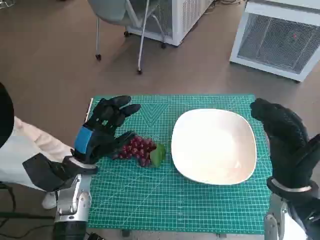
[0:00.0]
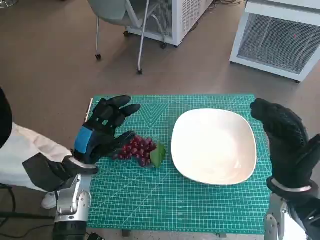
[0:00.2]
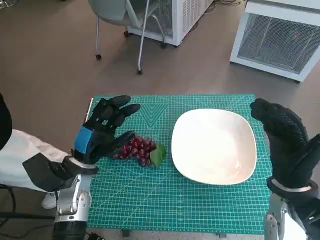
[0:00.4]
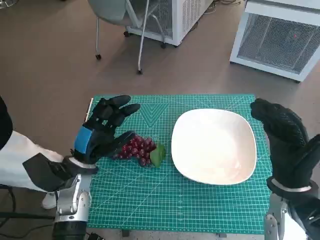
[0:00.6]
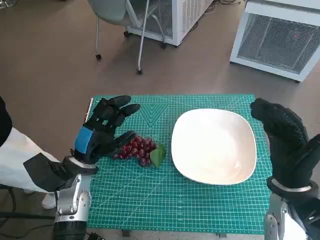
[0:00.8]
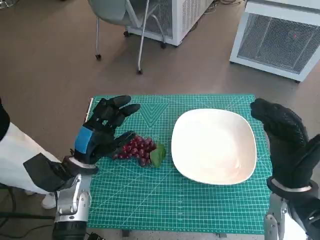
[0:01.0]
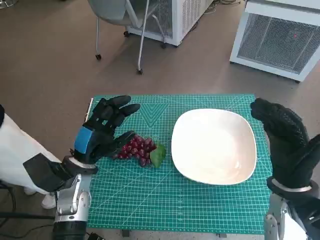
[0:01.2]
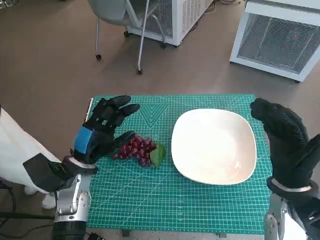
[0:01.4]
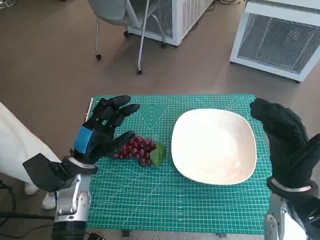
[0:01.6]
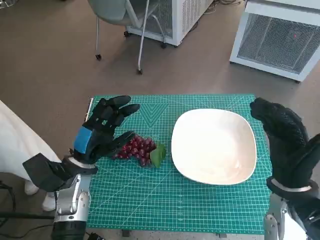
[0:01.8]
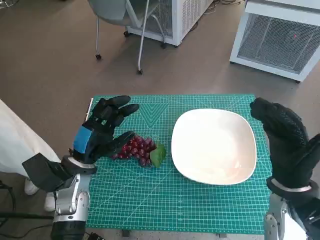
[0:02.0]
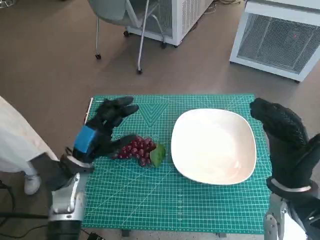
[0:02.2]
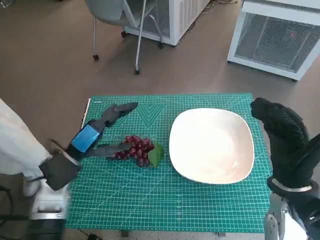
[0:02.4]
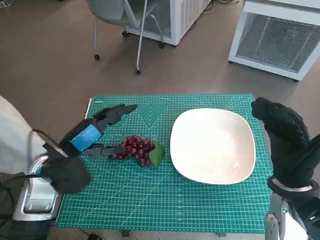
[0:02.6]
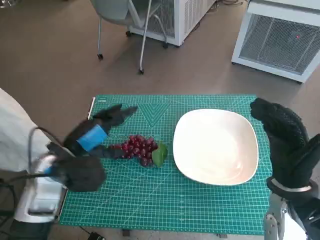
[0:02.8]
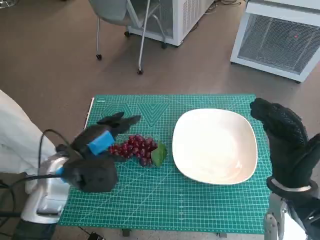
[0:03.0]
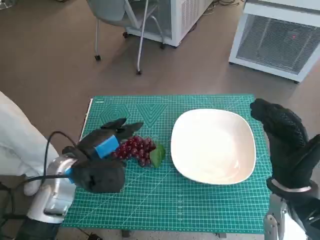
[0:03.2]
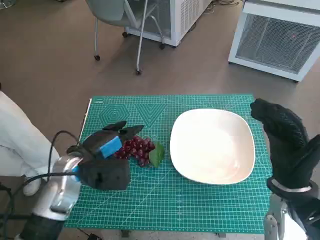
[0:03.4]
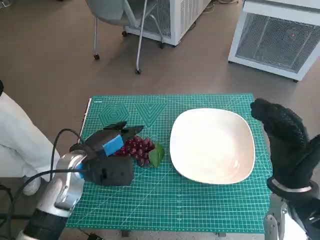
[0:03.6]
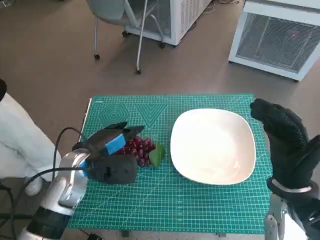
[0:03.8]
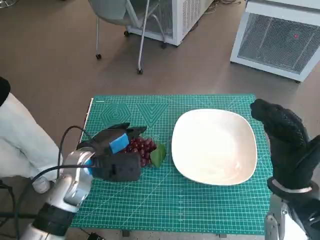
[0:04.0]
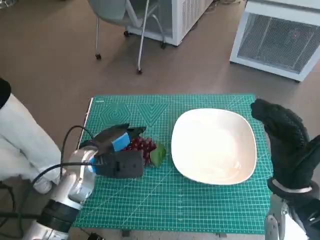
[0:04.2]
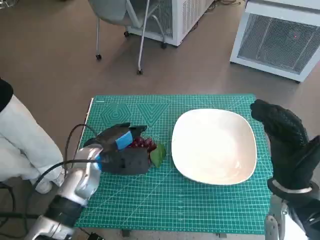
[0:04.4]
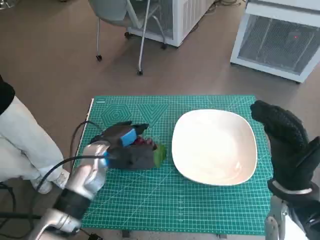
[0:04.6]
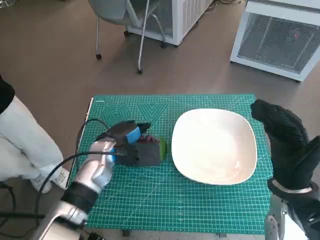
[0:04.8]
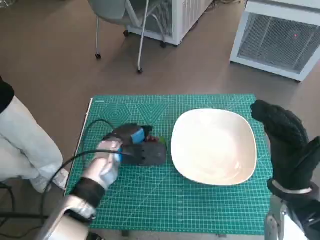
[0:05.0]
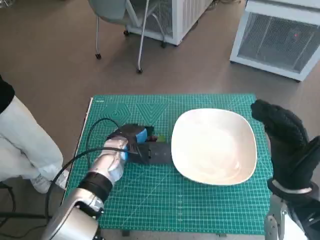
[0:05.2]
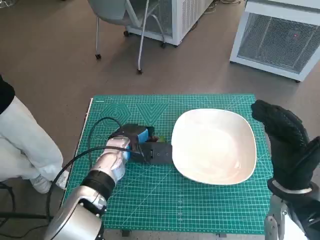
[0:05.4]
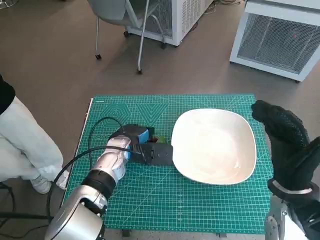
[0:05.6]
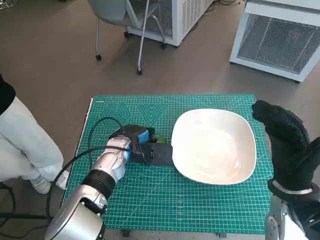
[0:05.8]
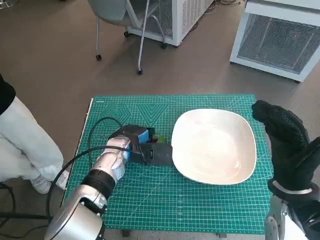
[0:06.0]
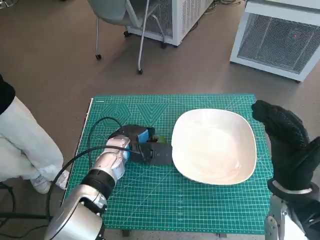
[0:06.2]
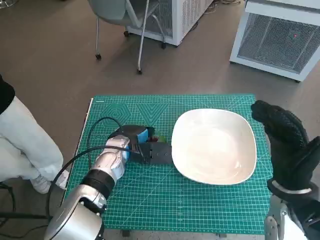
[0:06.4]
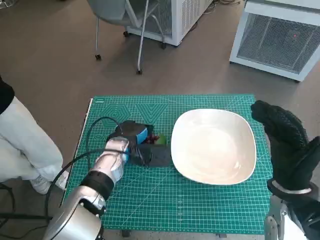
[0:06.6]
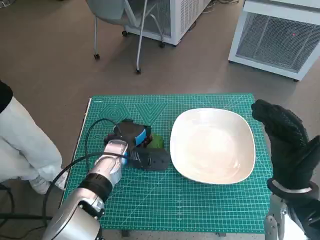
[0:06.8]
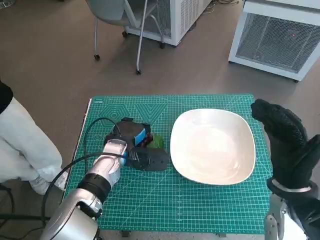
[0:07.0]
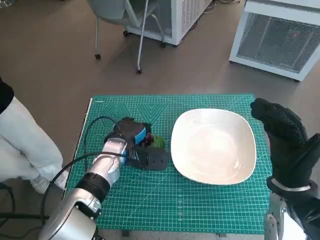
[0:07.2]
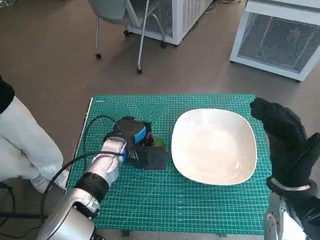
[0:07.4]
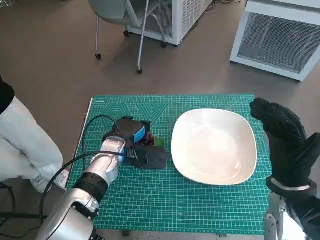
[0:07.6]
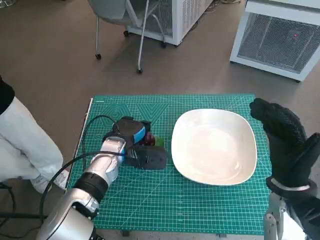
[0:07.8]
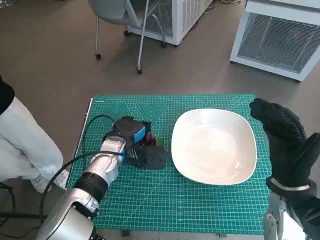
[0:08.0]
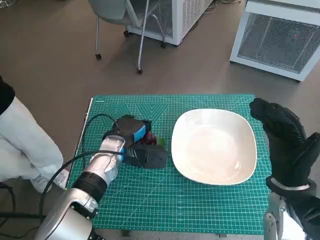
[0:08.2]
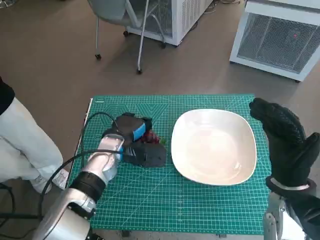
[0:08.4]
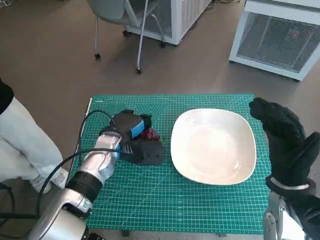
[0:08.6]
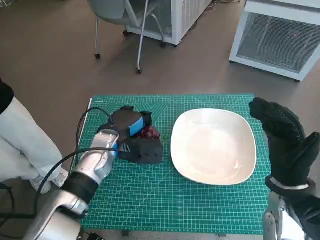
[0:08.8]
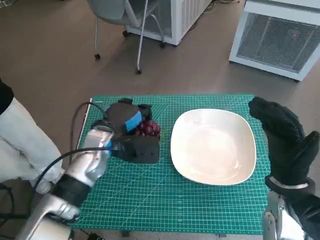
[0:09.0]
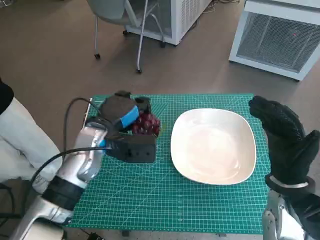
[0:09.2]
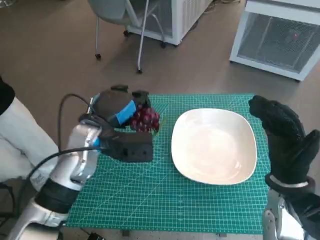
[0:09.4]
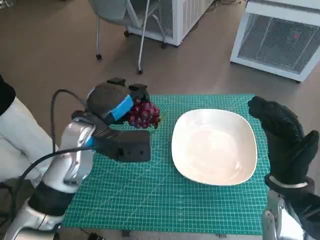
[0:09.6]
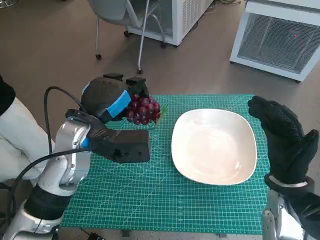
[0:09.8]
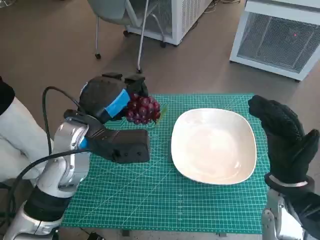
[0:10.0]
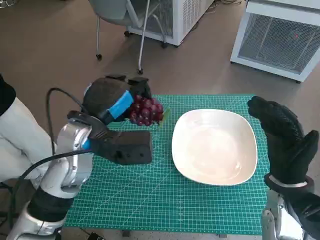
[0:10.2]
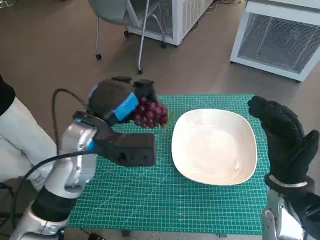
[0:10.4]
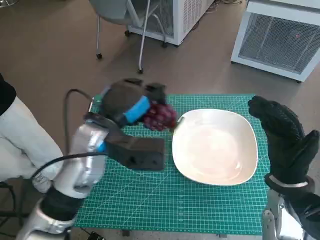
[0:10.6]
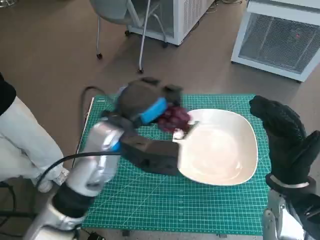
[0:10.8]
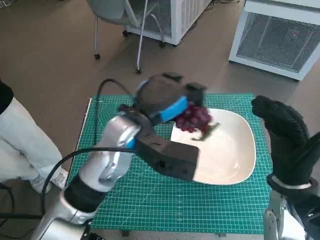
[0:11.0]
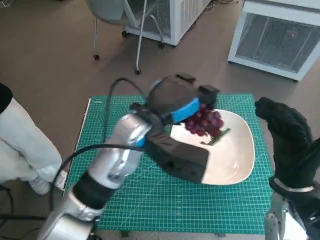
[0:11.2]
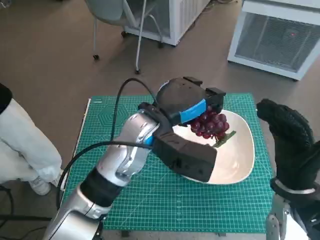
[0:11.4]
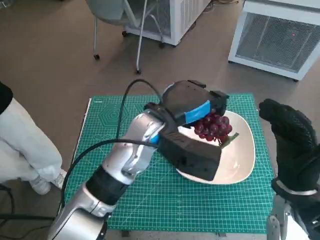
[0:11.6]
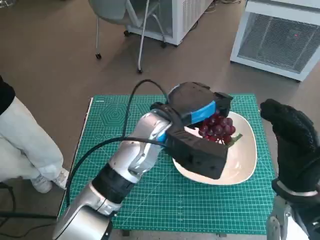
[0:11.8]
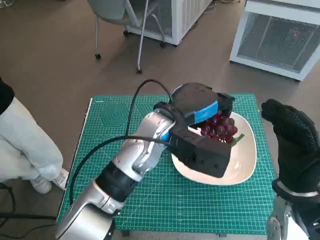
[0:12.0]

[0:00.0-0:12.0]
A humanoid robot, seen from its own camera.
Task of the whole recording: Pick up the grapes and put them on the plate.
Step, 0:00.0 to 0:06.8: Grasp the grapes with left hand.
0:01.6 to 0:03.0: The left hand travels upward by some 5 cm.
0:03.0 to 0:04.4: The left hand ends up some 5 cm from where it was.
0:04.4 to 0:06.0: The left hand moves roughly 5 cm.
0:06.0 to 0:07.6: The hands make only small movements.
0:07.6 to 0:09.0: The hands stay close to where they were, moving slightly.
0:09.0 to 0:10.4: The left hand heads upward, covering about 10 cm.
0:10.4 to 0:12.0: The left hand heads to the right, covering some 10 cm.

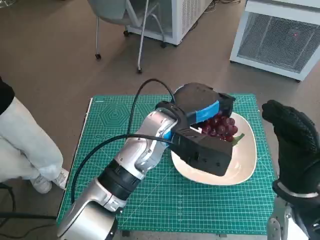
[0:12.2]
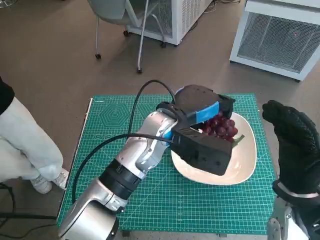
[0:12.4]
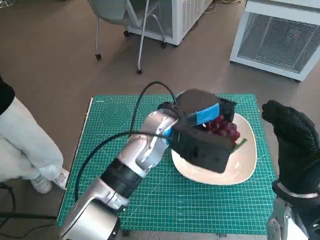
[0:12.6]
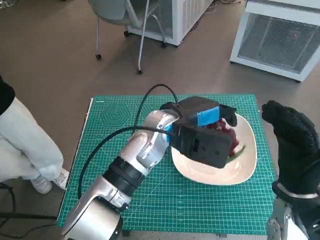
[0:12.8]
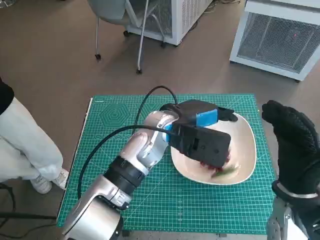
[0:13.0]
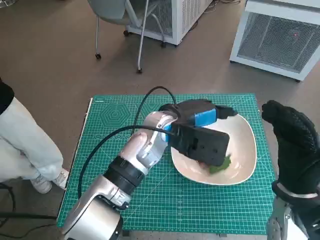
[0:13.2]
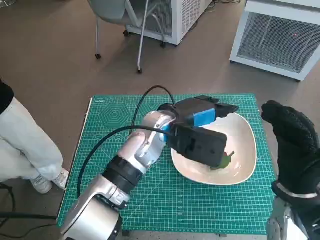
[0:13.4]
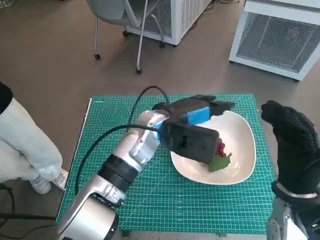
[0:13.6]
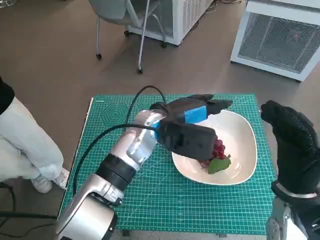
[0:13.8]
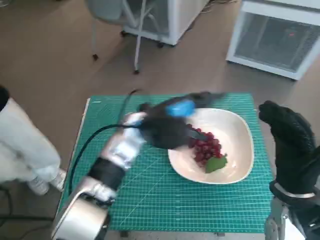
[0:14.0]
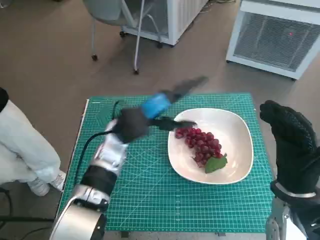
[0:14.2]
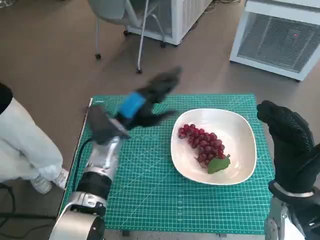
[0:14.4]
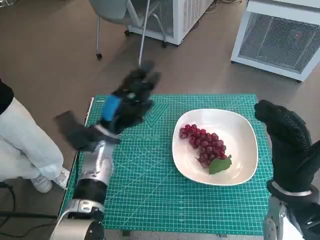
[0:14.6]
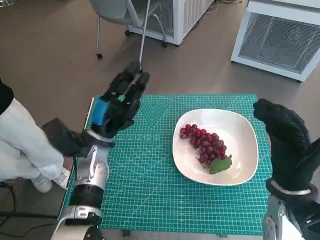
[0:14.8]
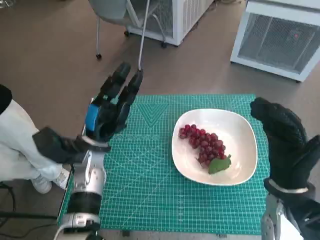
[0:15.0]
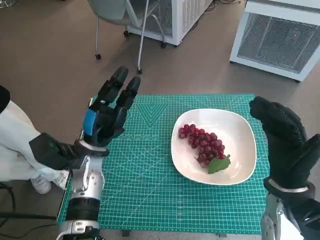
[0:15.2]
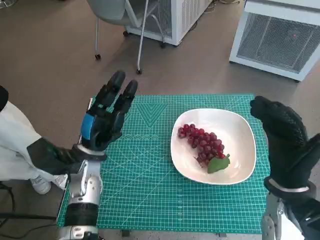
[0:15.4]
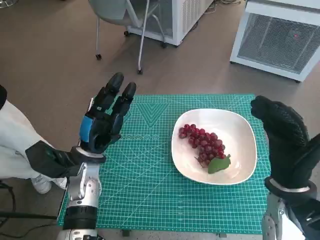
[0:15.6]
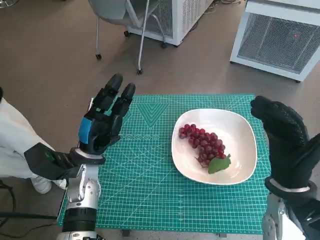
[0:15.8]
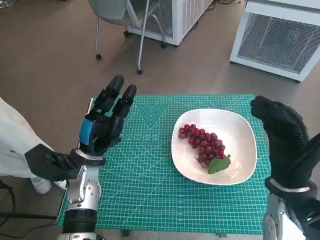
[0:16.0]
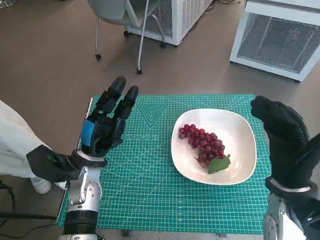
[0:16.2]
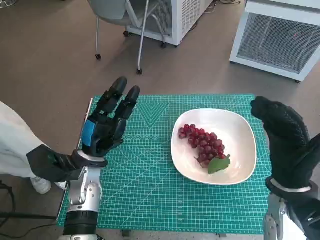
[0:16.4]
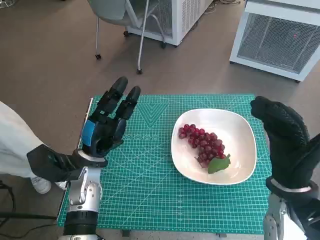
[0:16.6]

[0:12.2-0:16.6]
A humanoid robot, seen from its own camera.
Task of the whole recording: Pick up the grapes and put them on the plate.
0:13.6 to 0:15.2: The left hand shifts about 15 cm to the left and downward.
0:15.2 to 0:16.6: The hands move only a little.

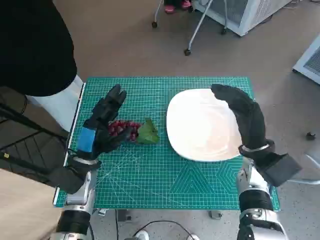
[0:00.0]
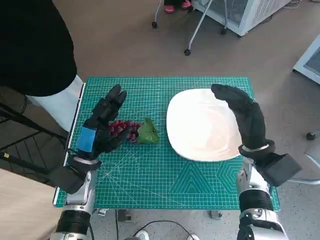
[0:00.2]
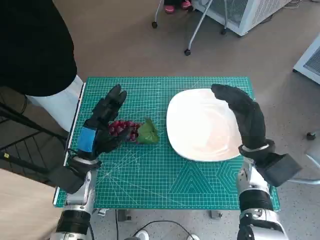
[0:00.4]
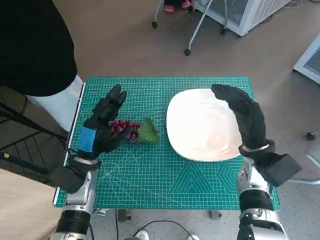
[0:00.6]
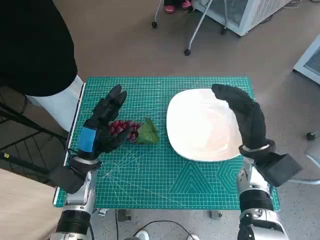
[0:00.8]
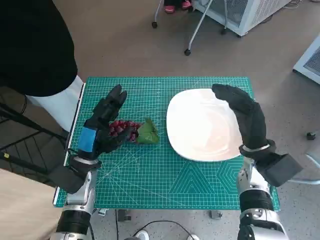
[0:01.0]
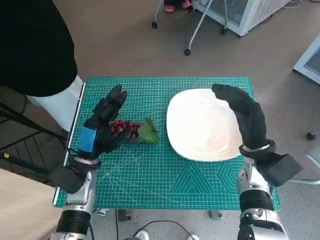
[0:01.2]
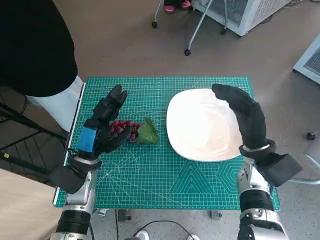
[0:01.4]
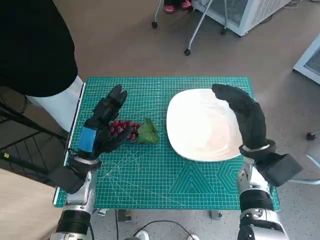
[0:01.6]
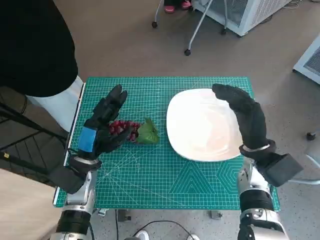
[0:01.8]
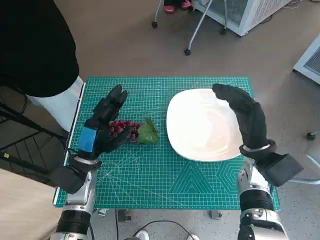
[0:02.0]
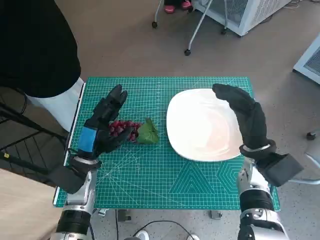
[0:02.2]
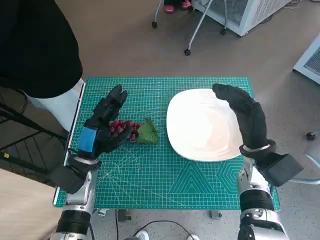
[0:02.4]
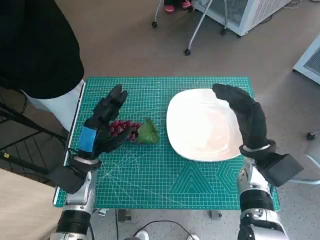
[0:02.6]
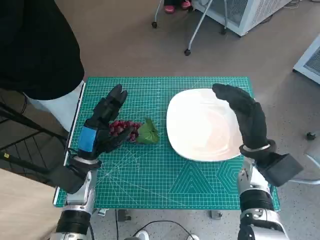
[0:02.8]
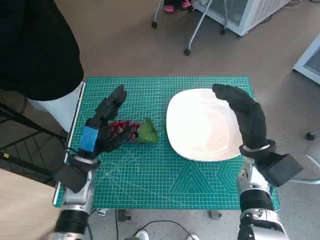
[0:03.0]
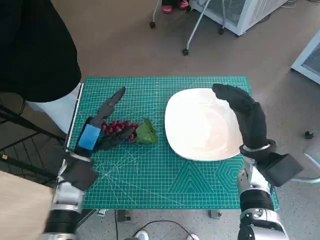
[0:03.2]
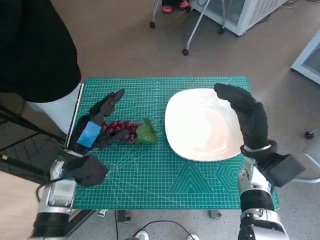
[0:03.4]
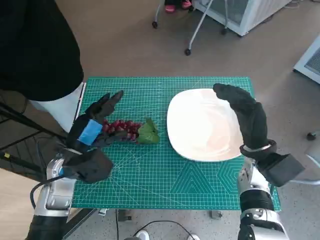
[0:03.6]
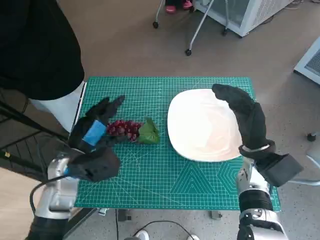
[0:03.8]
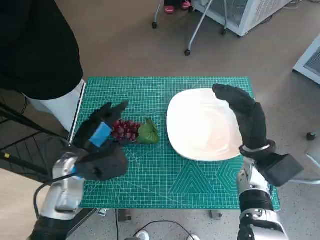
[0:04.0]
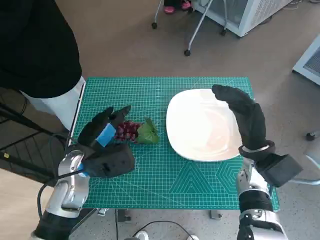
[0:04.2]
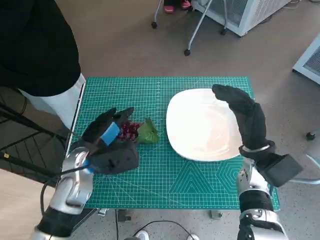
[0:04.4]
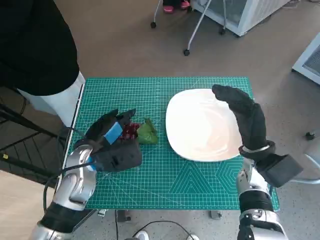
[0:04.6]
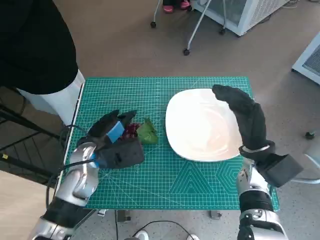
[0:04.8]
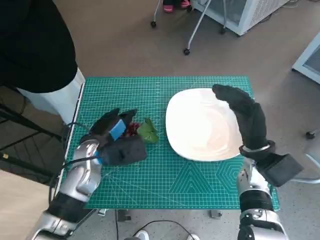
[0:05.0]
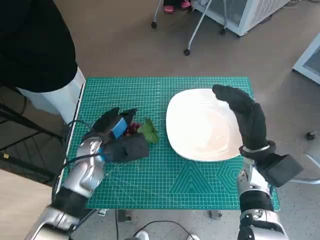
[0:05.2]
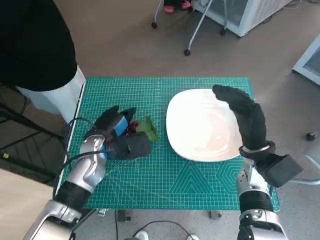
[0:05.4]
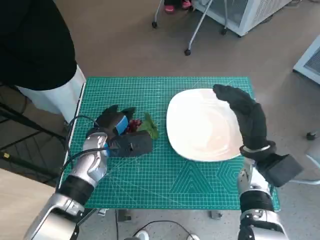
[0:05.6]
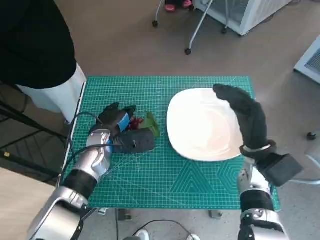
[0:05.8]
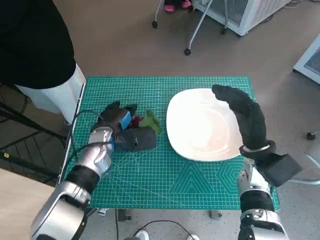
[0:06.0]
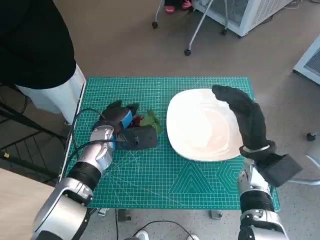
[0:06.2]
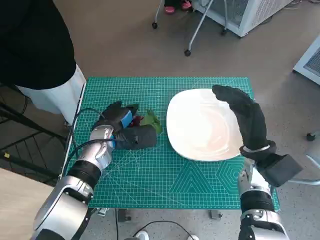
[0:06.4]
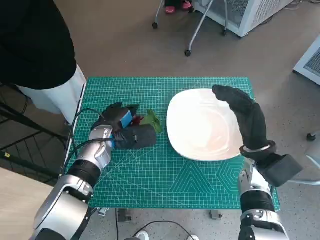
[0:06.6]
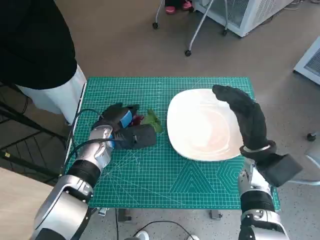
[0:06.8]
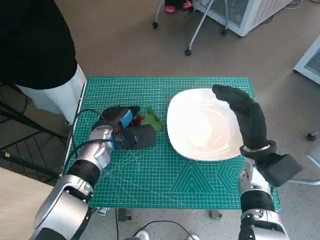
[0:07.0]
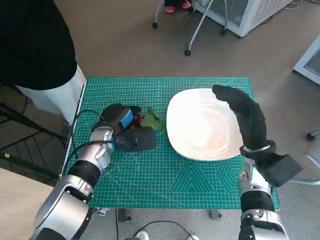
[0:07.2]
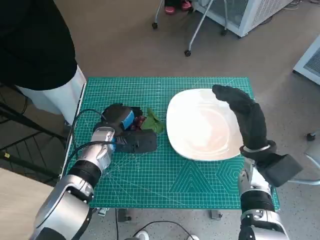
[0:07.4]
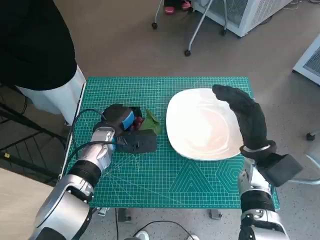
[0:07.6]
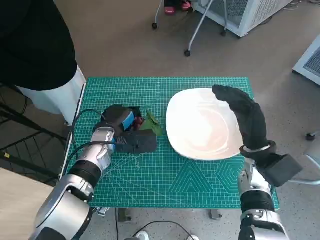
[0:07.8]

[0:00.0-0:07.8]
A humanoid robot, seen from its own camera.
Task of the whole recording: Pick up the grapes and put them on the plate.
0:01.6 to 0:03.2: The hands make only small movements.
0:04.6 to 0:06.2: The left hand goes about 5 cm forward.
0:06.2 to 0:07.8: The hands make only small movements.
